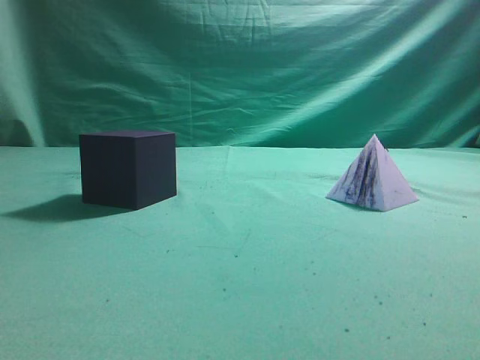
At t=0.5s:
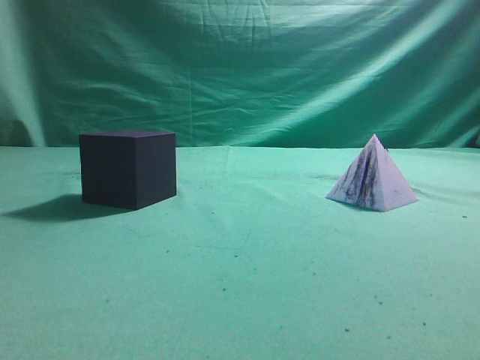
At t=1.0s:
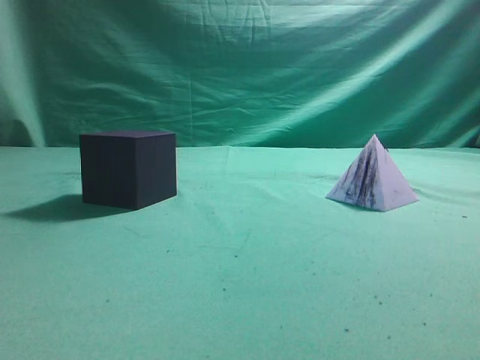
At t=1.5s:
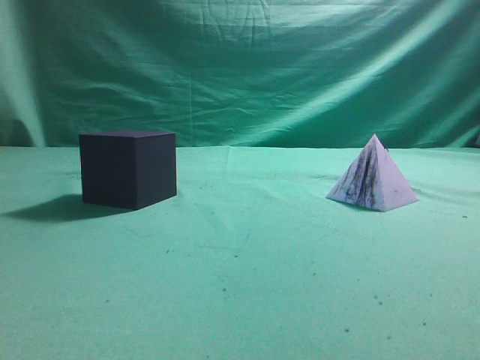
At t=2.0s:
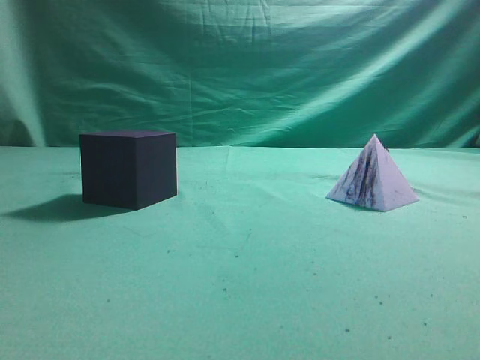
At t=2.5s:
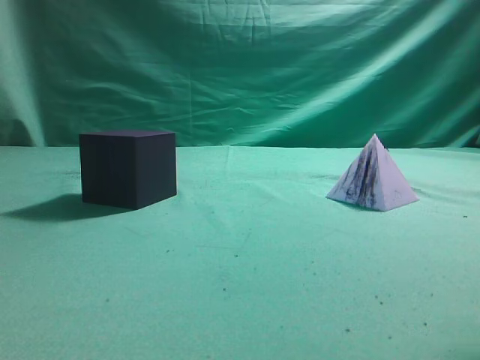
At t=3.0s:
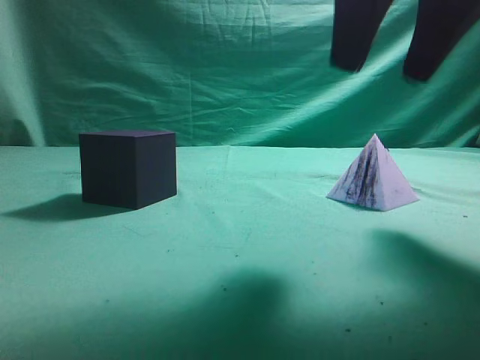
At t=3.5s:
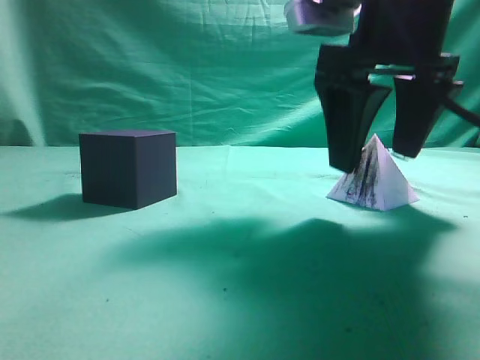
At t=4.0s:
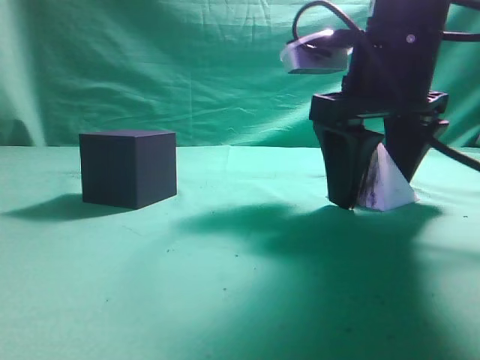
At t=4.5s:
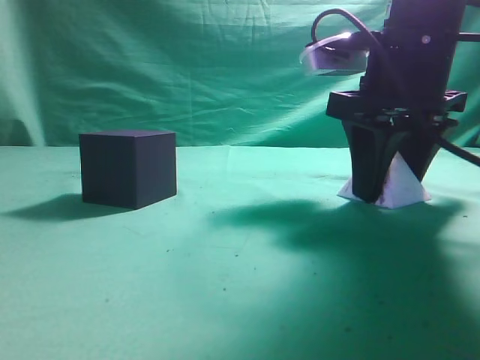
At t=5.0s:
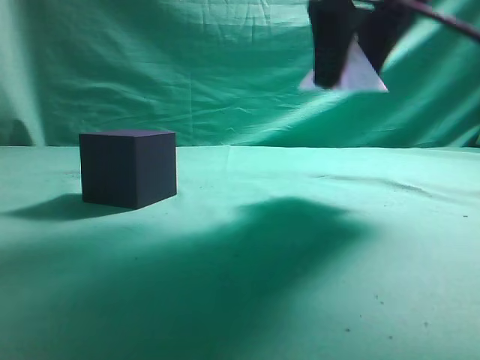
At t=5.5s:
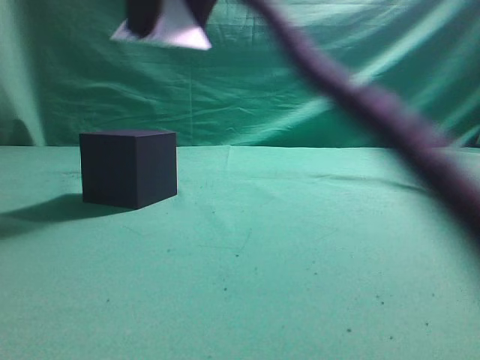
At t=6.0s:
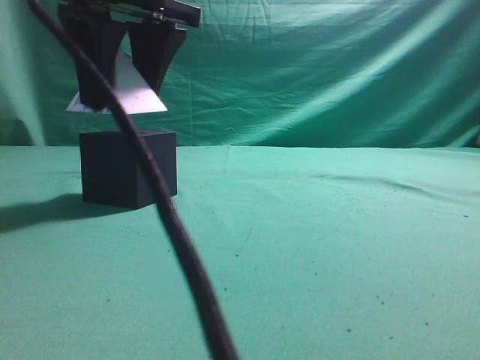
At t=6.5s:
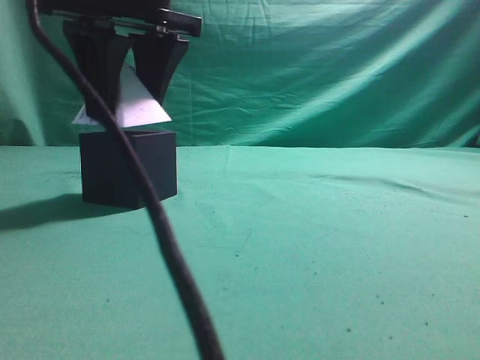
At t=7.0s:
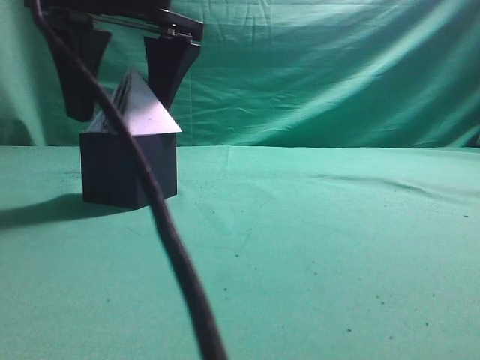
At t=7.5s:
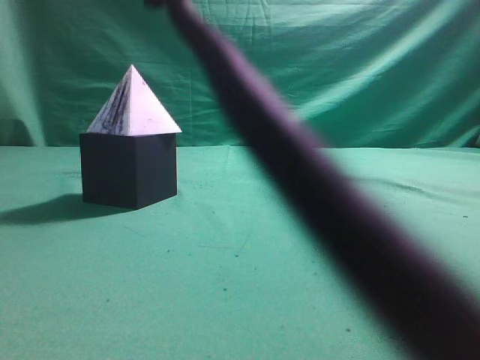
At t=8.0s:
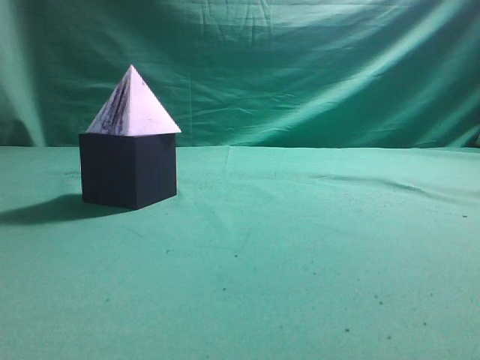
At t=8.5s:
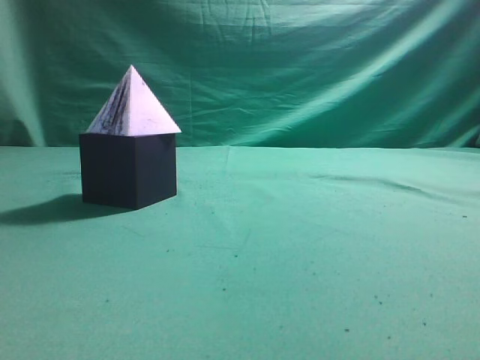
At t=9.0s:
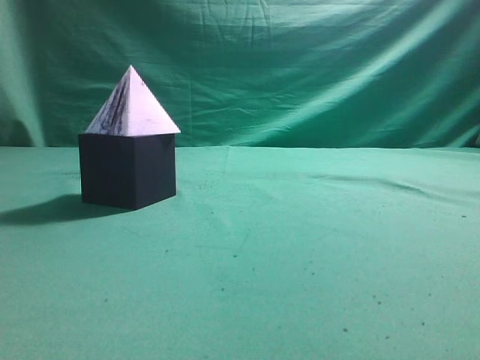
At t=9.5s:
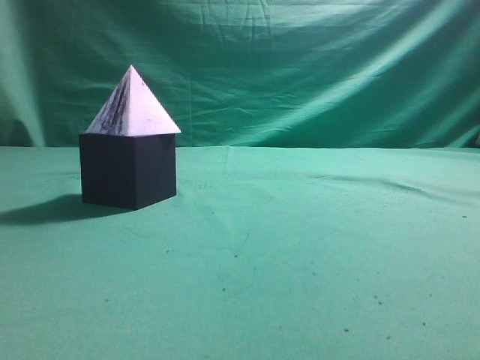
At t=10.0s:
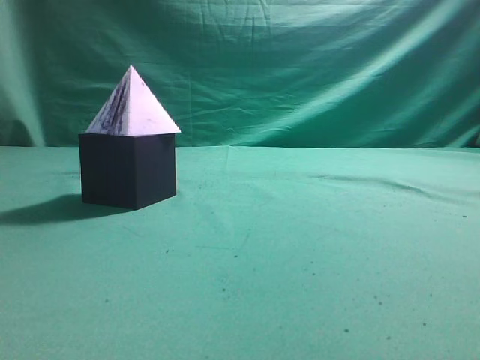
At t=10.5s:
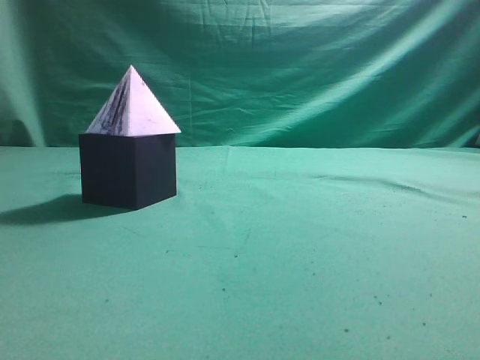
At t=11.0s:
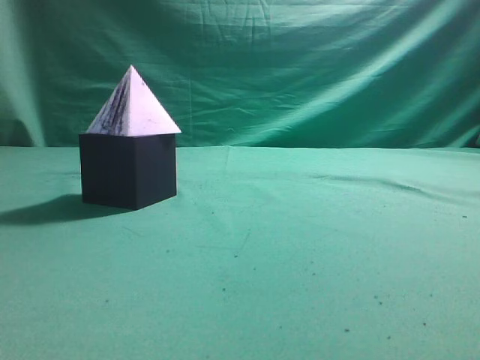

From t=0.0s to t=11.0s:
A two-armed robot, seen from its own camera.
Task of the whole recording: pick up the square pyramid from the table and place it on the cube block.
Step, from t=0.0s to t=4.5s: Grasp the triangular block.
Step, from t=5.0s to t=7.0s: Place the block onto the cube-shaped block.
From t=2.0s to t=3.5s: The right gripper is displaced forward, to the left and downward by about 25 cm, and opens up.
From t=3.5s to t=5.5s: The right gripper moves to the left and upward, approximately 20 cm, and closes.
From t=5.5s to t=7.5s: The right gripper reaches some 5 cm downward, then returns.
From t=7.5s to t=9.0s: The right gripper shifts some 35 cm to the right and backward, and closes up.
